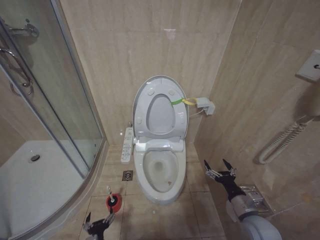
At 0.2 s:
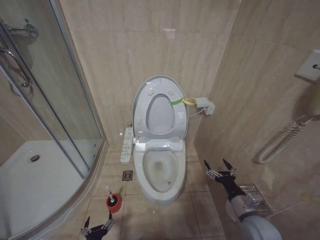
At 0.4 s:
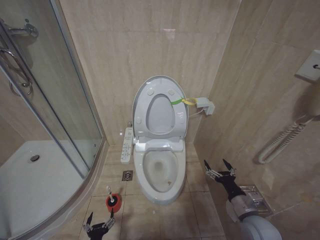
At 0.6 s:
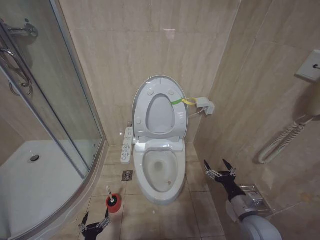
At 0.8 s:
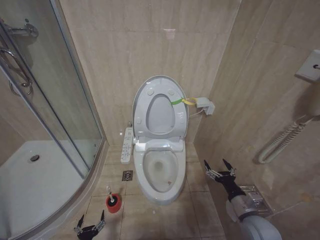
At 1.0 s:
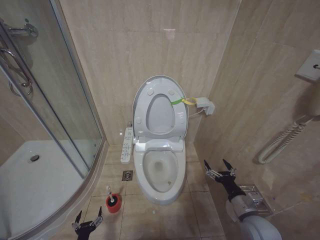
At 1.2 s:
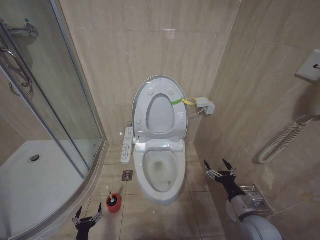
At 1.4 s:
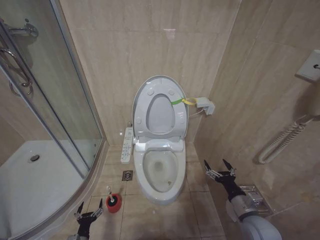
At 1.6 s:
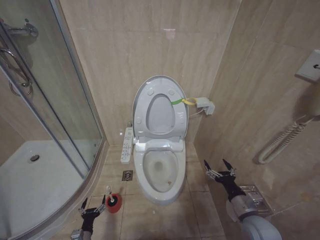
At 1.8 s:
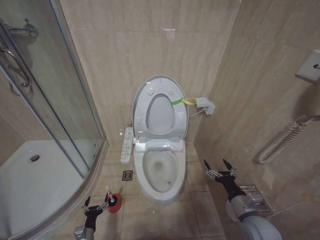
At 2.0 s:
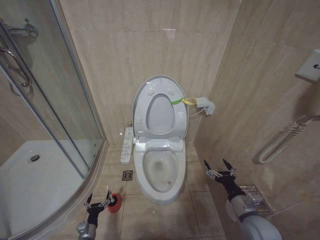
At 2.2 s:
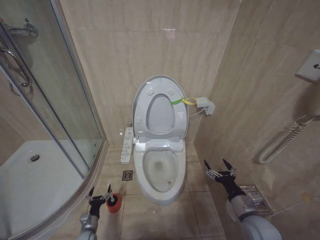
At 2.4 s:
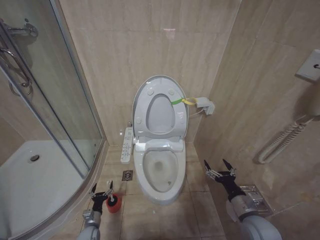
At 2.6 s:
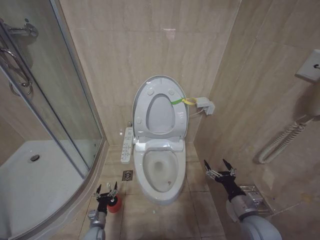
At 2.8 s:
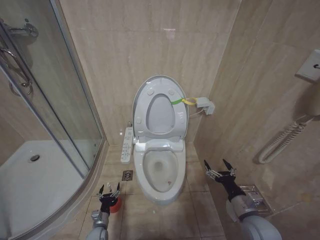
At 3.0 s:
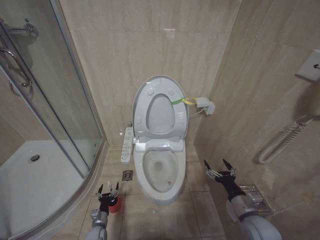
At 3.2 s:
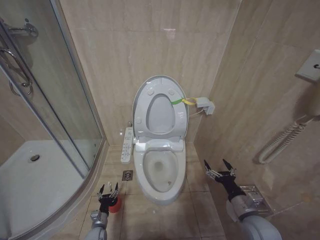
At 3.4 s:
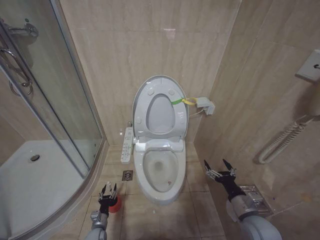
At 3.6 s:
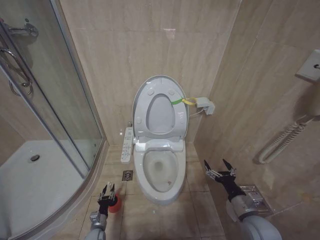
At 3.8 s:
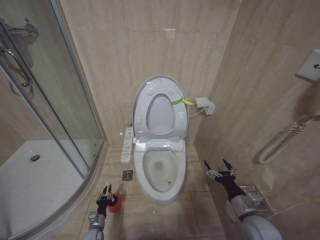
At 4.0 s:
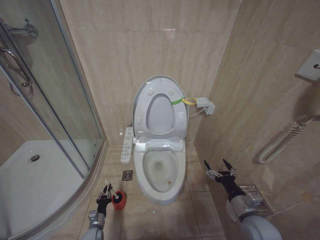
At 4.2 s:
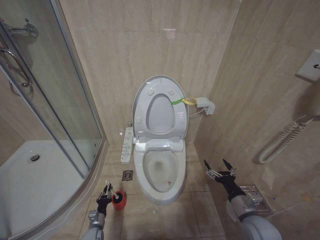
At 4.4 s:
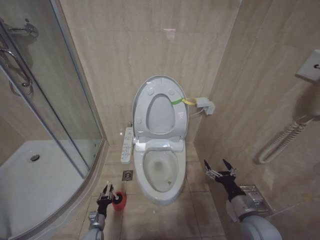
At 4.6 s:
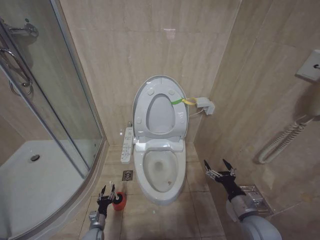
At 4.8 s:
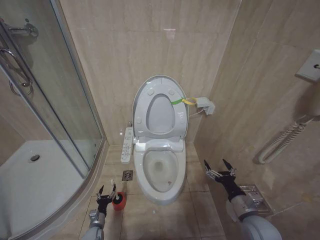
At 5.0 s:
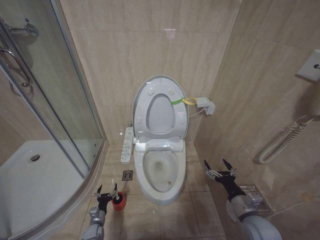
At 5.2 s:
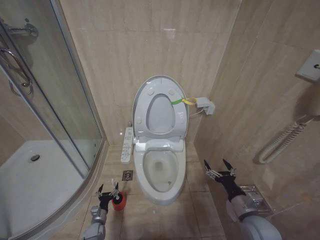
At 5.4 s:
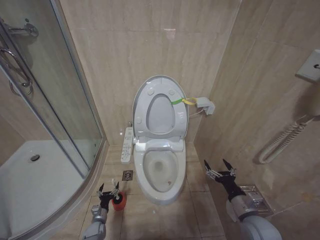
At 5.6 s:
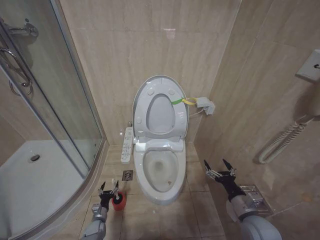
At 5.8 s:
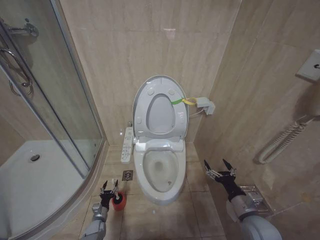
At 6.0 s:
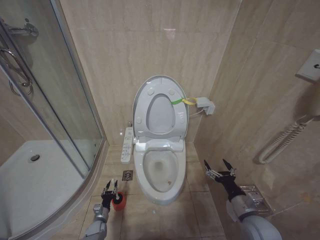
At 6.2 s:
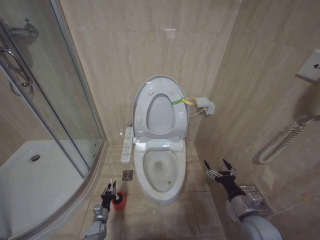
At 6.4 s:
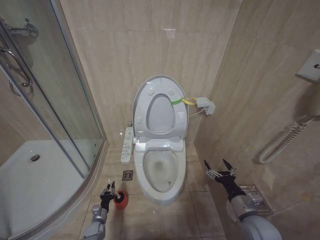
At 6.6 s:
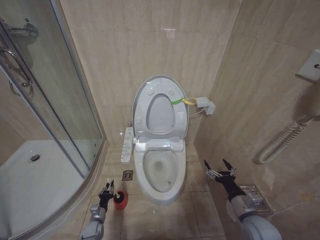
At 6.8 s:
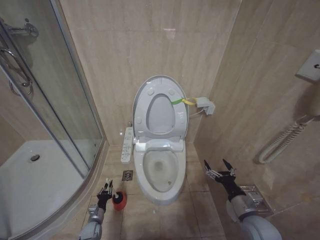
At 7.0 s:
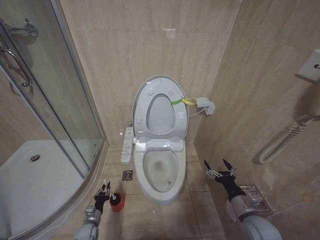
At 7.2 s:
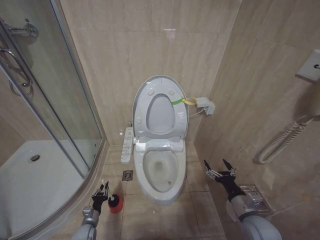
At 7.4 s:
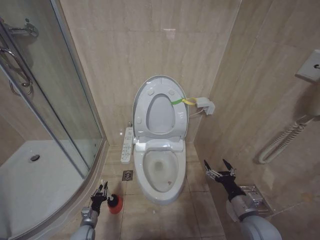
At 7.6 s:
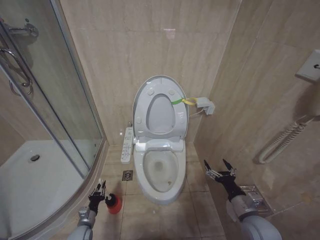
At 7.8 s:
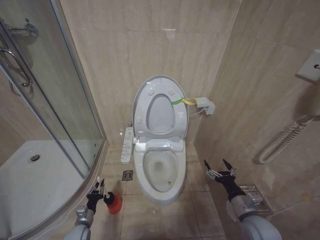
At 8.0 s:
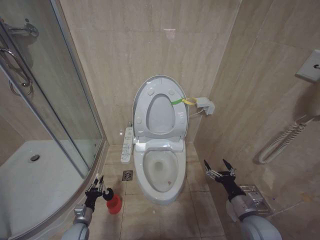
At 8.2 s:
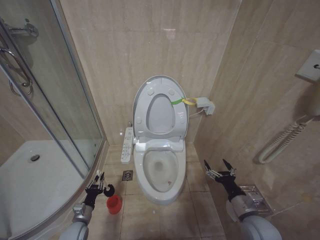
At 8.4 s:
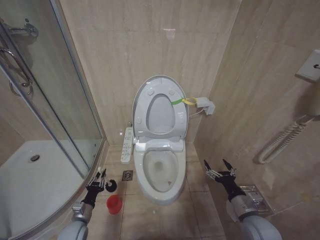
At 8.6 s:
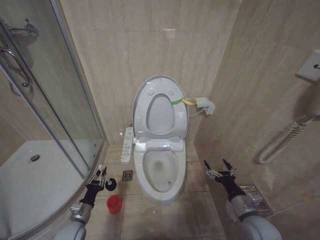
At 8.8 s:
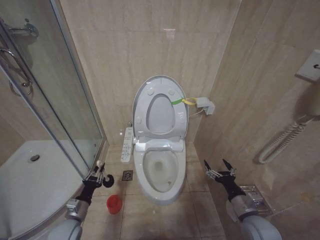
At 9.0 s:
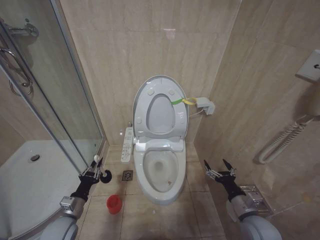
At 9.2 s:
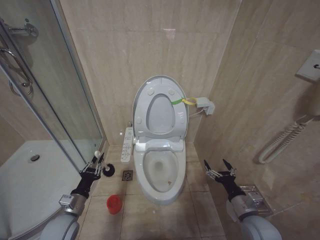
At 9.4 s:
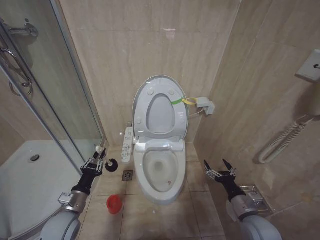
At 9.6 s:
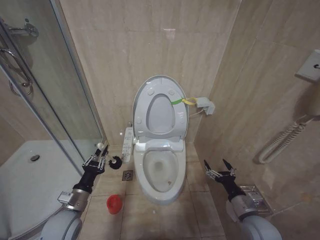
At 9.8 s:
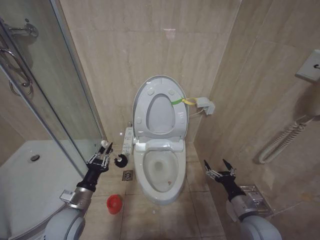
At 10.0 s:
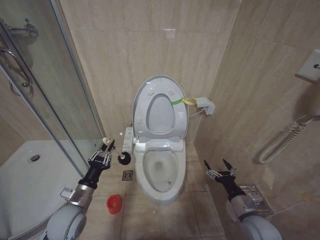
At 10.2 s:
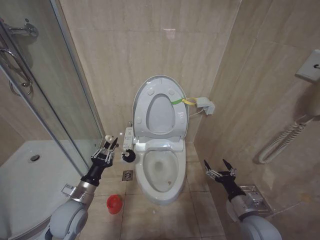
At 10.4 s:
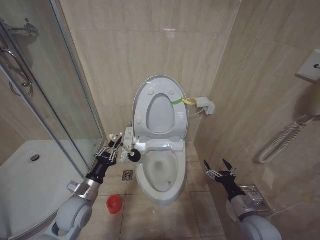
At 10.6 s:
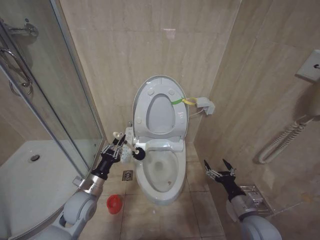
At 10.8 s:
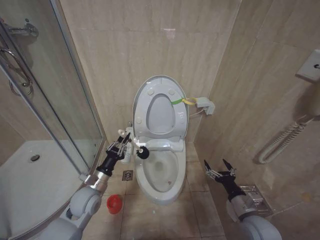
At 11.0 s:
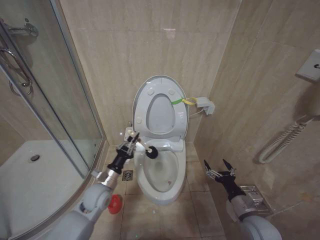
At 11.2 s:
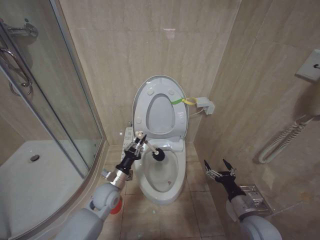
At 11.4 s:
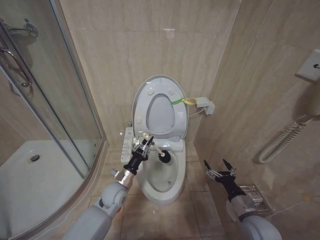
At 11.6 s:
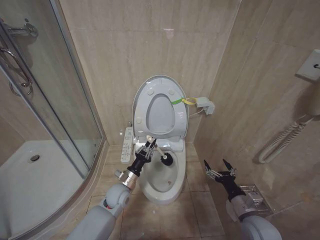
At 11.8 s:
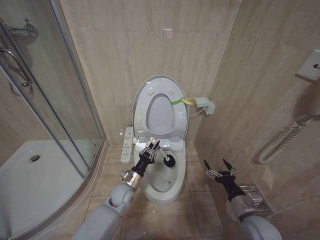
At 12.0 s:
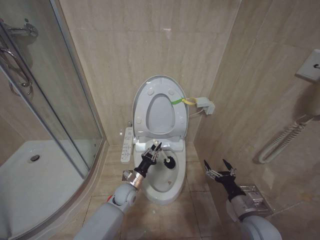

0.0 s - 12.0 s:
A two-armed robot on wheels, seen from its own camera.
Task of the whole recording: Open the toilet lid, clean the toilet bowl with a toilet brush, close the toilet lid, and flush.
0.0 s - 1.6 s: The left gripper moves to the left and downward, some 15 cm.
1.6 s - 3.0 s: The left gripper is displaced forward and to the right by approximately 10 cm.
3.0 s - 4.4 s: The left gripper closes.
4.4 s - 6.0 s: The left gripper opens its fingers.
6.0 s - 7.6 s: The left gripper travels upward by some 5 cm, and closes up.
7.6 s - 9.0 s: The left gripper goes approximately 20 cm upward.
9.0 s - 10.4 s: The left gripper goes approximately 10 cm upward and to the right.
10.4 s - 12.0 s: The left gripper travels to the right, downward and forward by some 20 cm.

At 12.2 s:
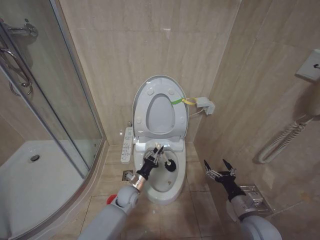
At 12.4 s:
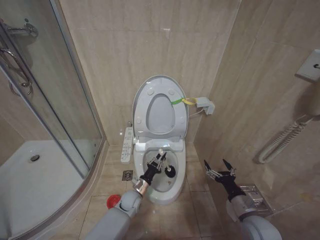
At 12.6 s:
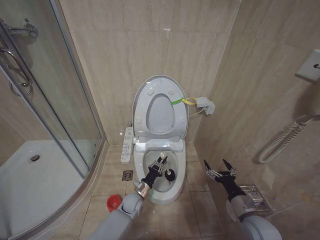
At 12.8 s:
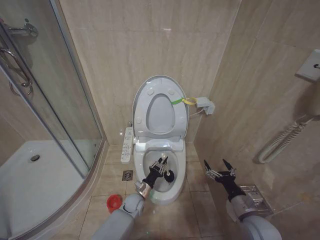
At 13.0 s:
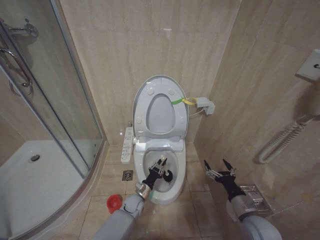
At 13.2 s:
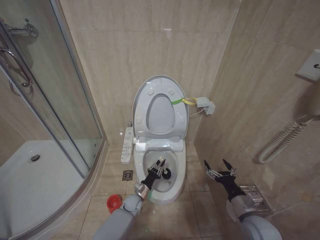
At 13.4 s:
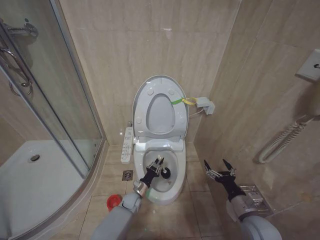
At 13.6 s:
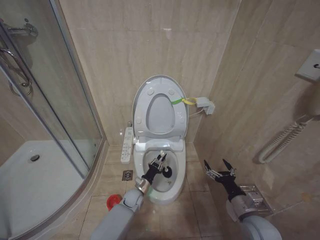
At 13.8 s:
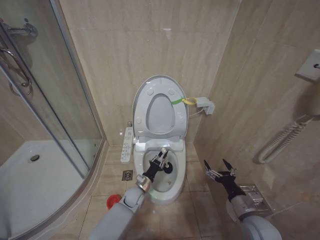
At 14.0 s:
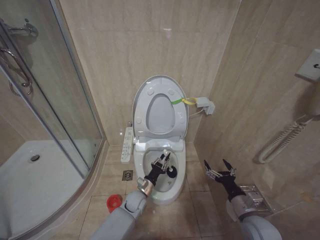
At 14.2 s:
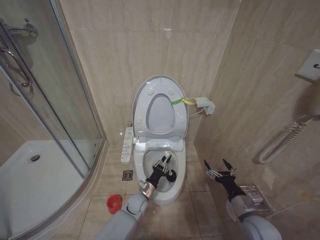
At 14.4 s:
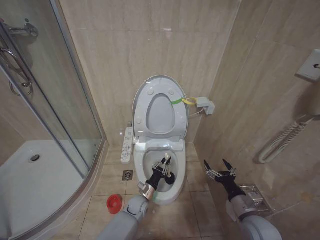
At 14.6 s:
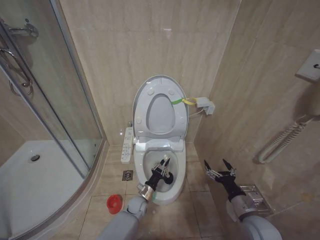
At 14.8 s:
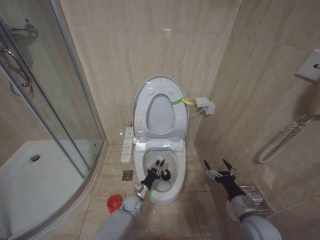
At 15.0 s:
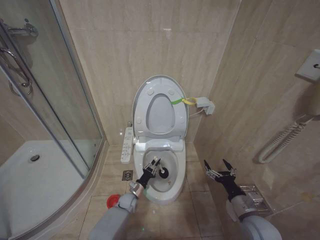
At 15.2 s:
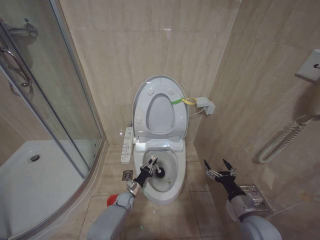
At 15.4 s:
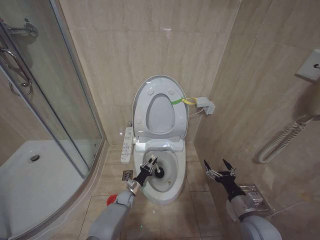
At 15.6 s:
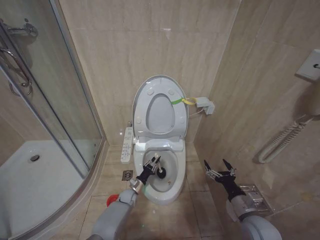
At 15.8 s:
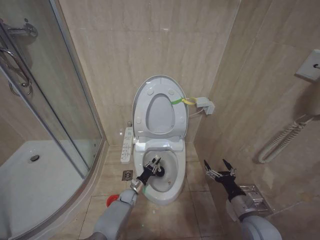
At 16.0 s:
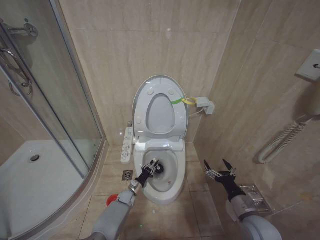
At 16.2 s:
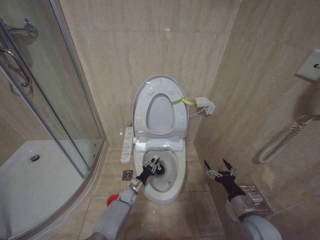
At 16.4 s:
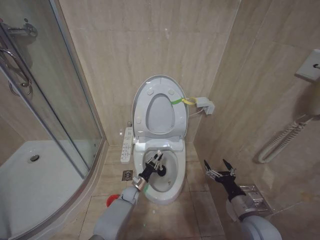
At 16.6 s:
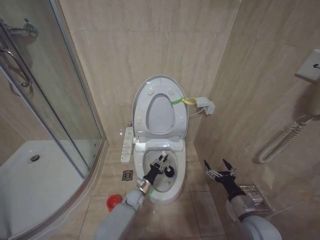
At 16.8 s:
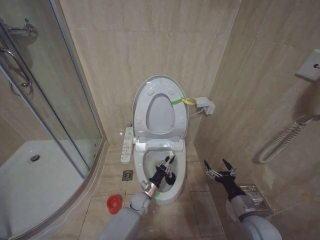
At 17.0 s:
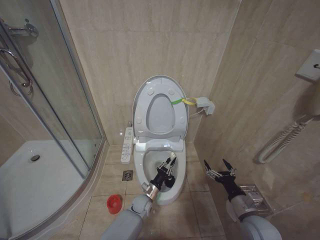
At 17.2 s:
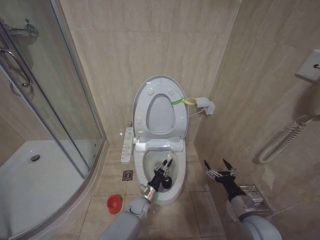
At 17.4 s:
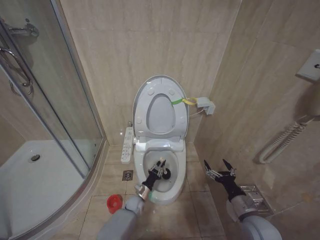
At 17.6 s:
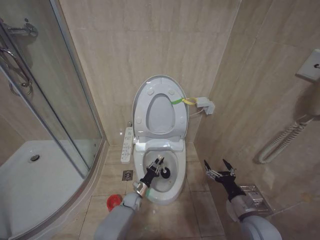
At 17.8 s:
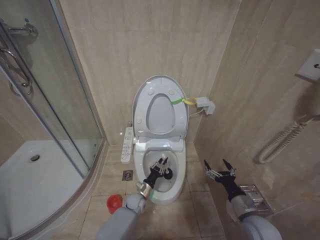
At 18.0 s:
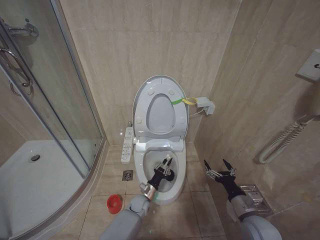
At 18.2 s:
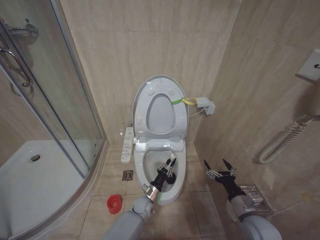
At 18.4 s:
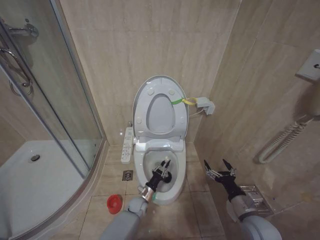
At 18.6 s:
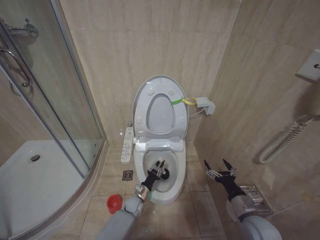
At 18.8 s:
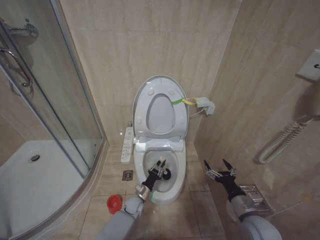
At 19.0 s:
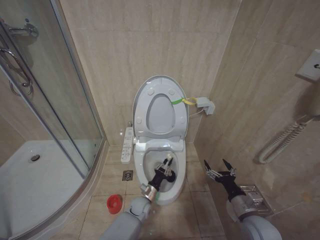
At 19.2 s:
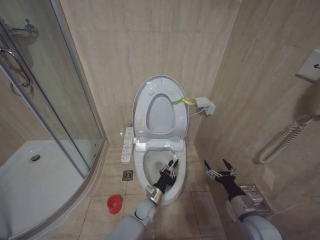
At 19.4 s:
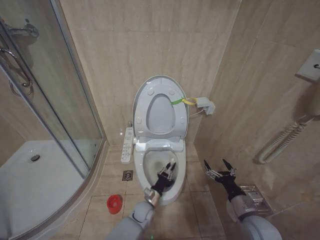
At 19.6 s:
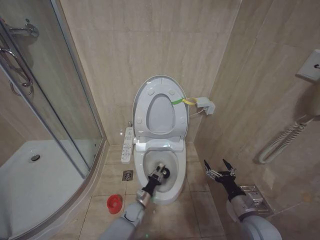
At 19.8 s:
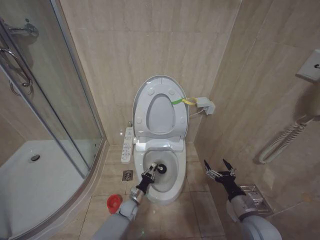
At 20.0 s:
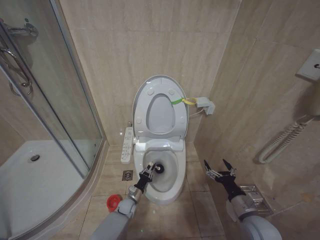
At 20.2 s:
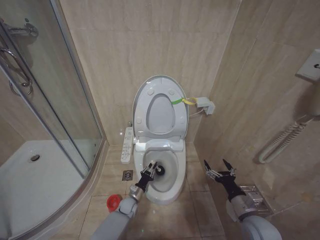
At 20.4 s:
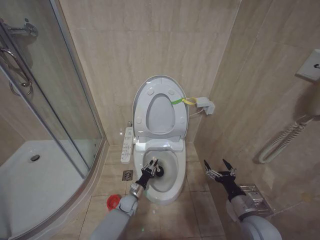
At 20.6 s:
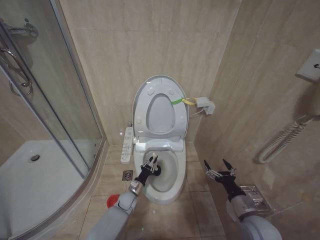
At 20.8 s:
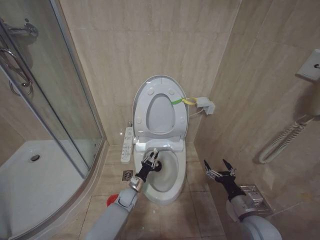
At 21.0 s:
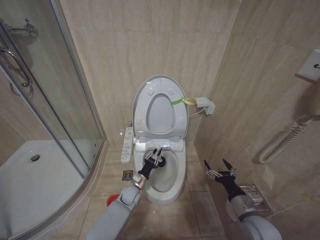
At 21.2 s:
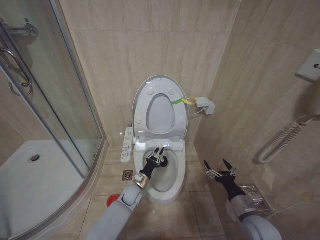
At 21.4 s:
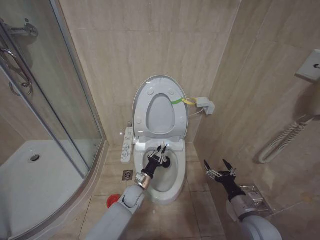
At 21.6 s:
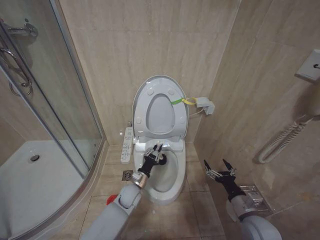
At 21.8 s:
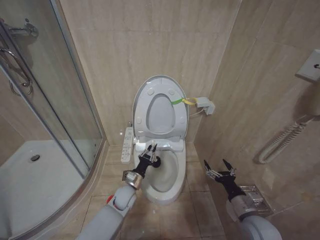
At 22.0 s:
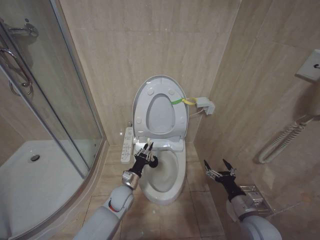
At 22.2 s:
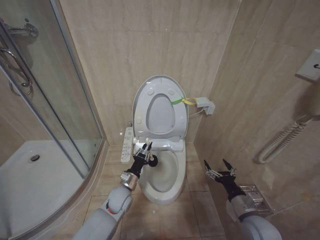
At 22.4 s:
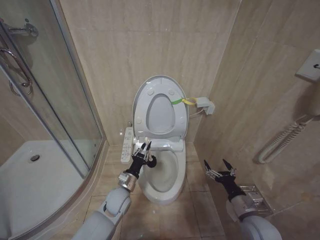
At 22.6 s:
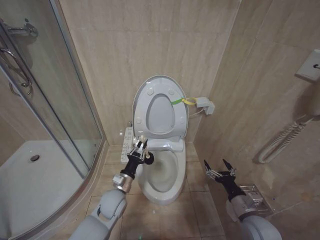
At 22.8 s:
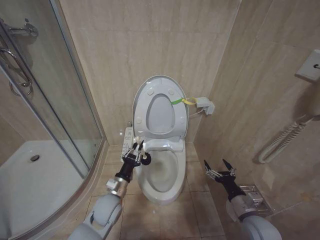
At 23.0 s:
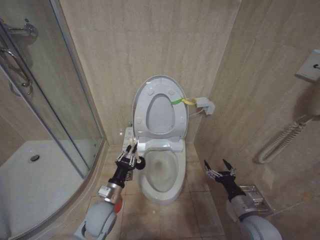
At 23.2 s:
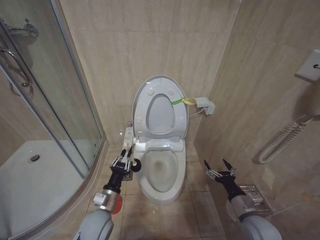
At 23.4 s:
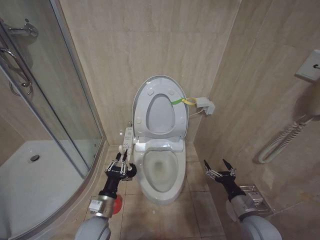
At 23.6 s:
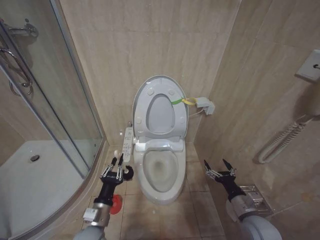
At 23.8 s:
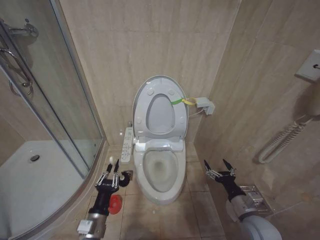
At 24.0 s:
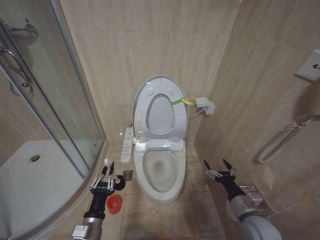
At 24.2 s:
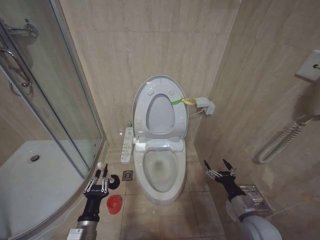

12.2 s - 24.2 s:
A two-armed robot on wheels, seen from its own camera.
Task of the whole recording: Open the toilet lid, clean the toilet bowl with a toilet brush, close the toilet lid, and flush.
12.2 s - 13.8 s: The left gripper heads downward, covering roughly 5 cm.
13.8 s - 15.2 s: The left gripper heads downward and to the left, covering about 10 cm.
15.2 s - 16.6 s: The left gripper changes place by some 5 cm.
16.6 s - 18.2 s: The left gripper swings left and right, approximately 5 cm each way, with 2 reversals.
18.2 s - 19.8 s: The left gripper moves left and right over approximately 10 cm, changing direction 2 times.
19.8 s - 21.2 s: The left gripper travels upward by some 10 cm.
21.2 s - 22.6 s: The left gripper travels upward and backward by approximately 10 cm.
22.6 s - 24.2 s: The left gripper heads backward and to the left, covering some 20 cm.
